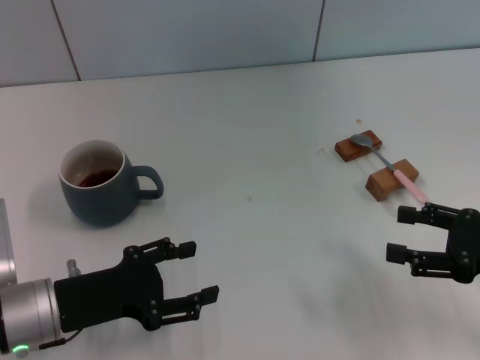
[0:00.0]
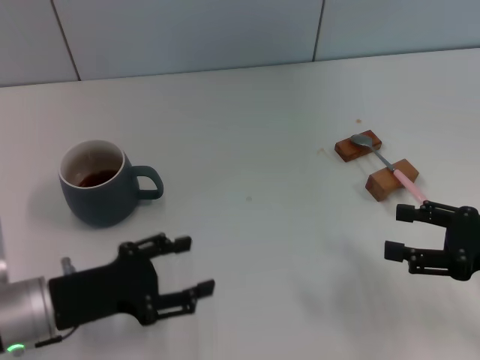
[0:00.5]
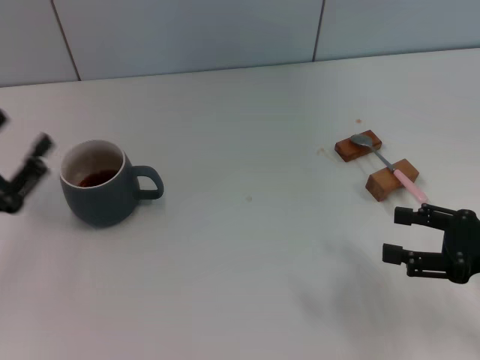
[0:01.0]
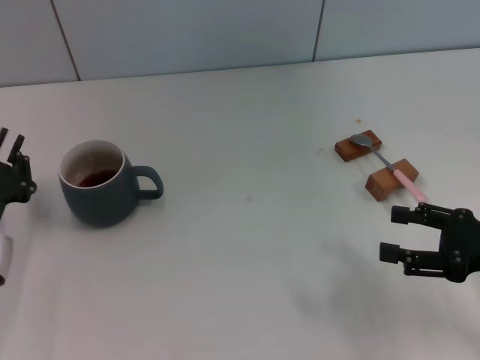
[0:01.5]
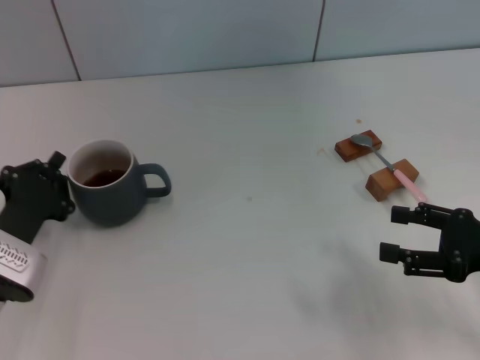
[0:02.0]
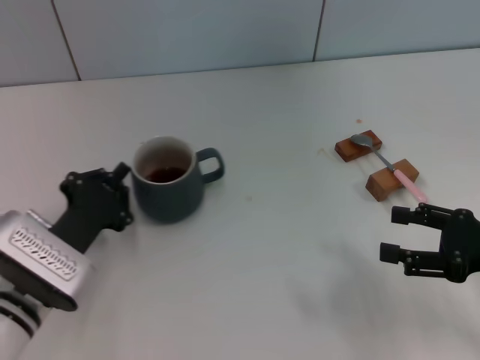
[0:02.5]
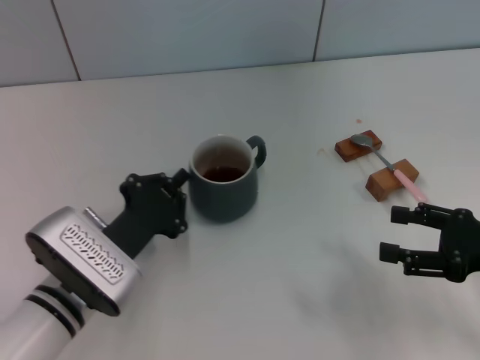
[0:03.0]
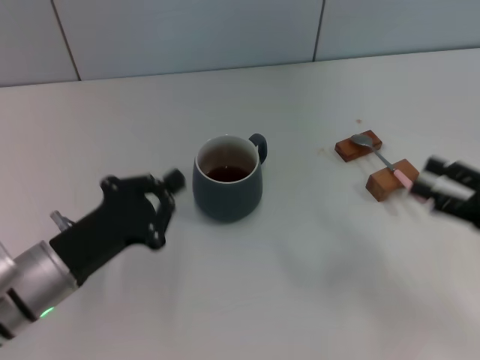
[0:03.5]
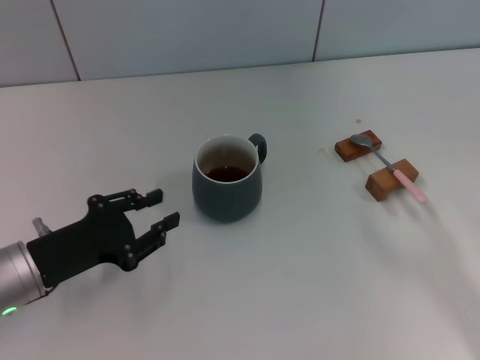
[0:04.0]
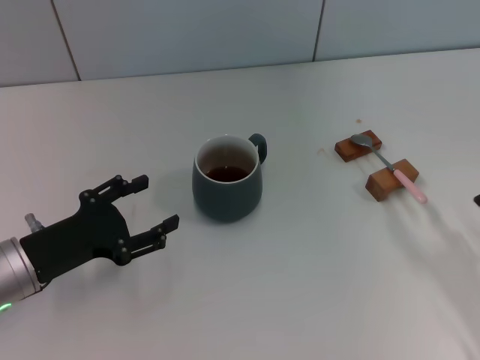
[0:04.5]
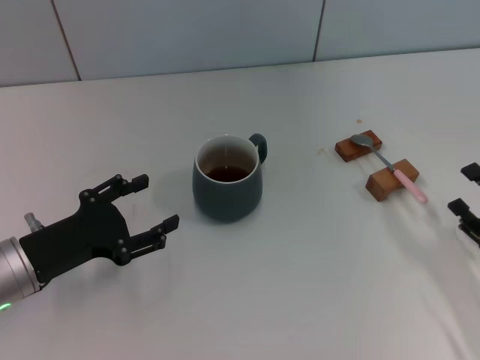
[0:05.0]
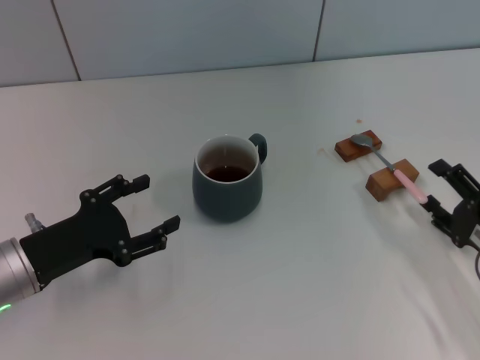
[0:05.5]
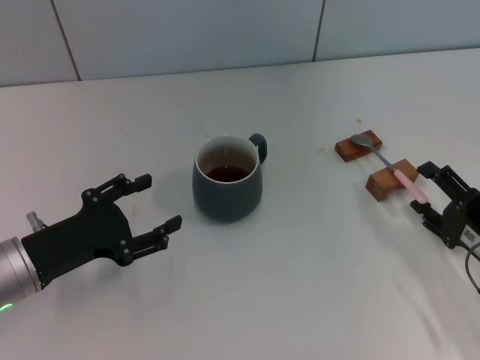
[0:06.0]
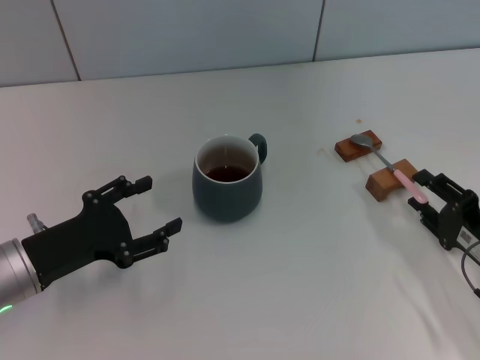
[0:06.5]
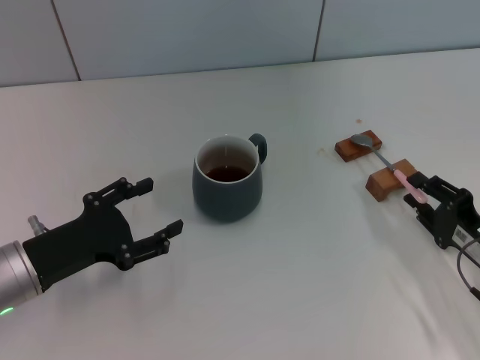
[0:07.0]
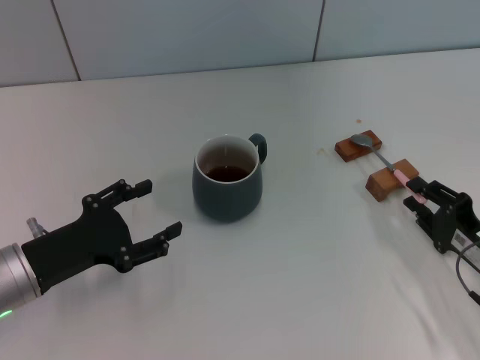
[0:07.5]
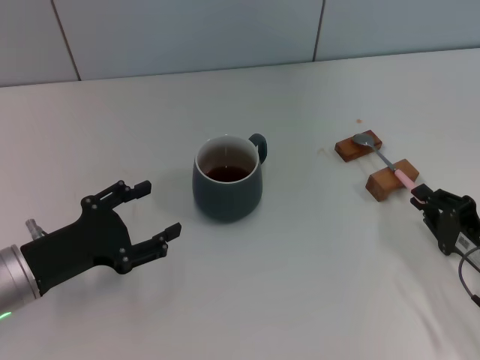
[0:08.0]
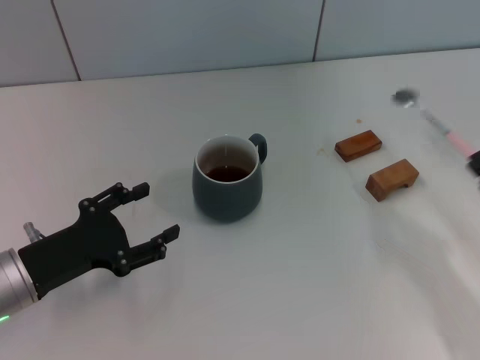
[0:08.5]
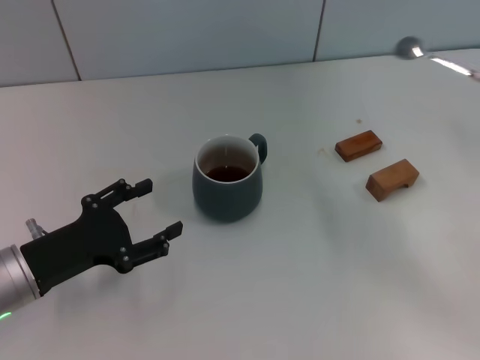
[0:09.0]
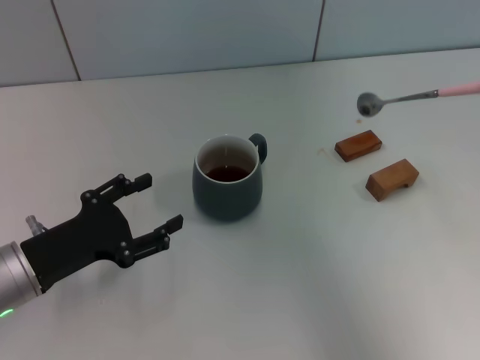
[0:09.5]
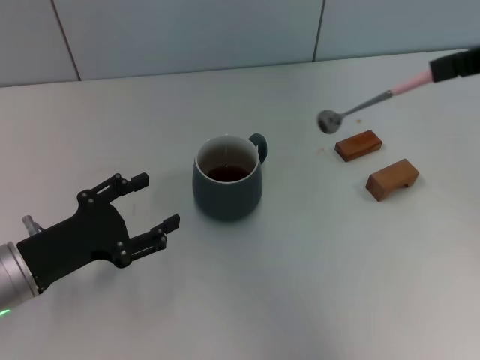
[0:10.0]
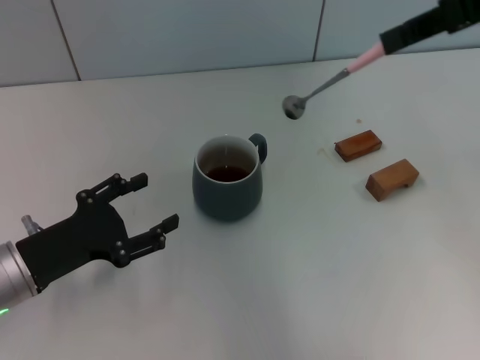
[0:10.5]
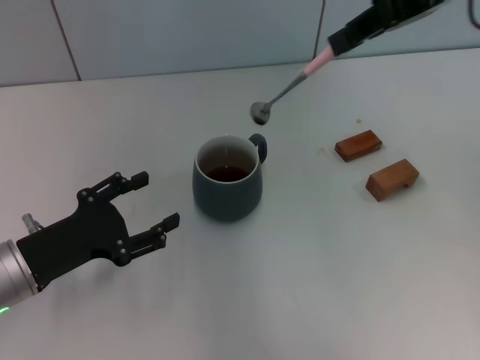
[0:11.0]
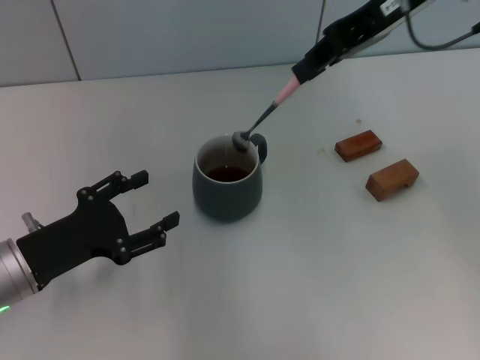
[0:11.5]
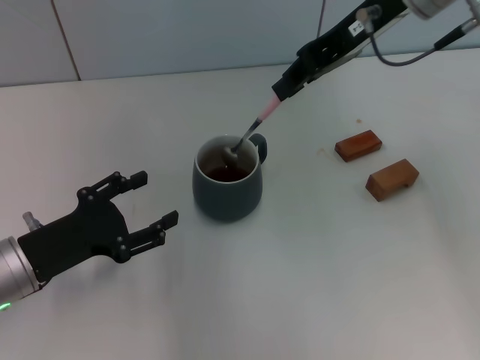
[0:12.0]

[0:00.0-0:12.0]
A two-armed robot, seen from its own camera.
Task of the whole recording: Move the grey cup to the center, lift the pink spoon, stir it three times in the cup, and put the spoon into the cup.
Step, 0:00.0 to 0:03.5: Move the cup with coffee to the center of view with the left gripper.
Step, 0:04.0 to 0:08.0: Pick up the spoon with the right gripper.
0:00.0 to 0:02.0: The left gripper moves approximately 10 cm to the left and comes back, and closes.
0:02.0 to 0:04.0: The right gripper moves about 5 cm. Meanwhile the left gripper reaches about 10 cm to the right, then returns.
0:04.0 to 0:06.0: The left gripper opens, while the right gripper travels to the left and downward by approximately 10 cm.
0:06.0 to 0:08.0: The right gripper closes up.
0:08.0 to 0:10.0: The right gripper moves upward, some 35 cm.
0:10.0 to 0:12.0: The right gripper goes some 15 cm to the left and forward.

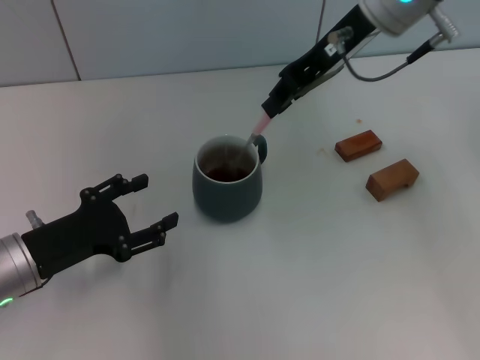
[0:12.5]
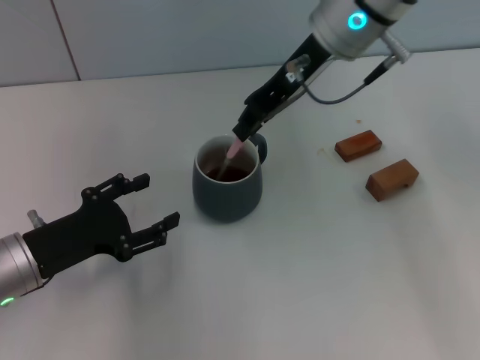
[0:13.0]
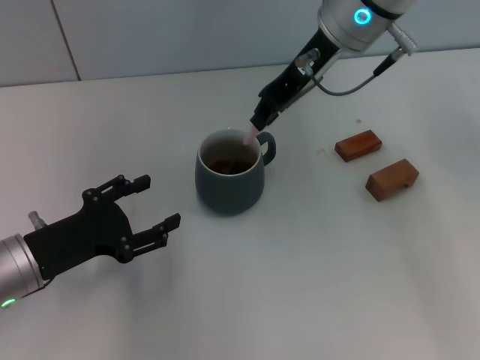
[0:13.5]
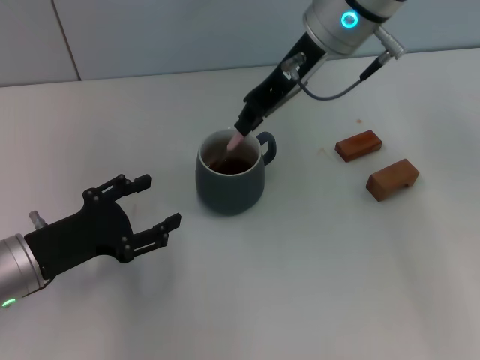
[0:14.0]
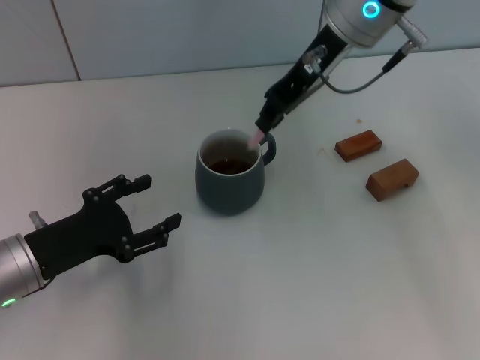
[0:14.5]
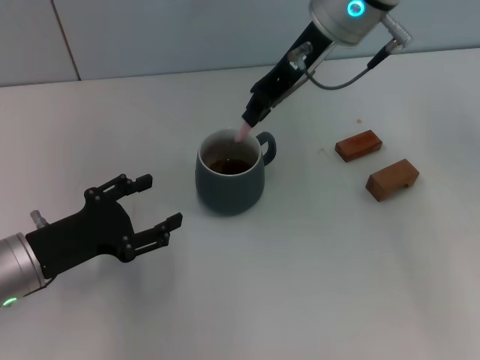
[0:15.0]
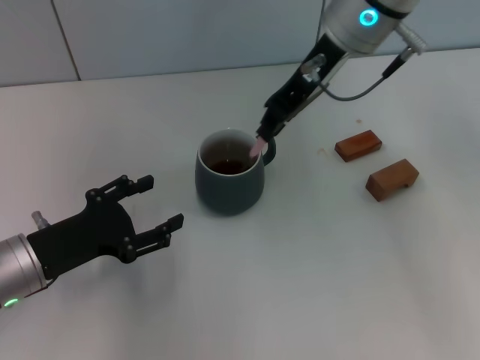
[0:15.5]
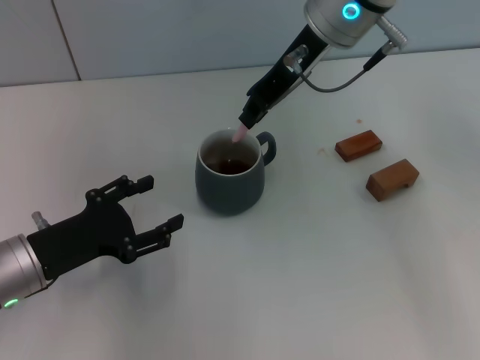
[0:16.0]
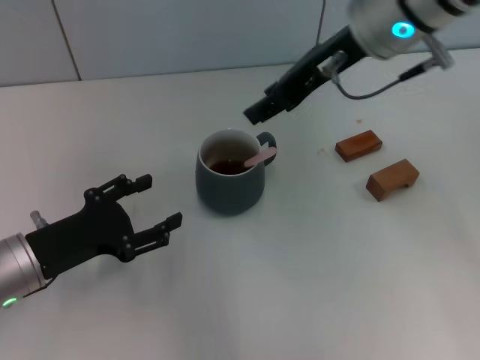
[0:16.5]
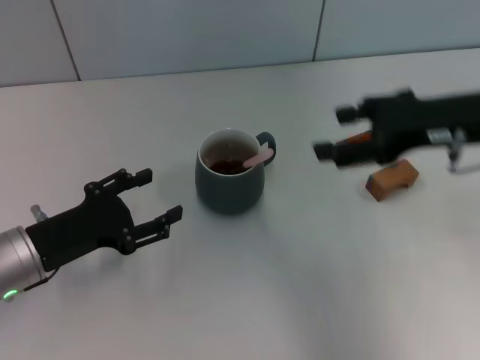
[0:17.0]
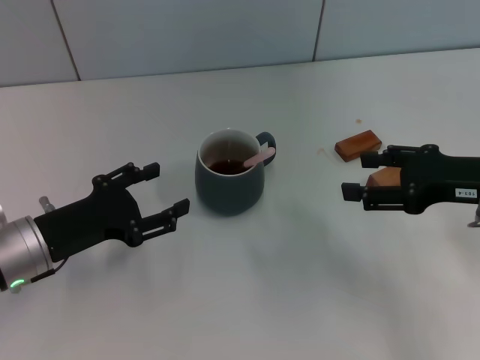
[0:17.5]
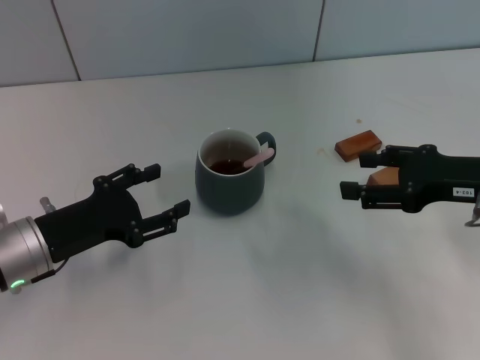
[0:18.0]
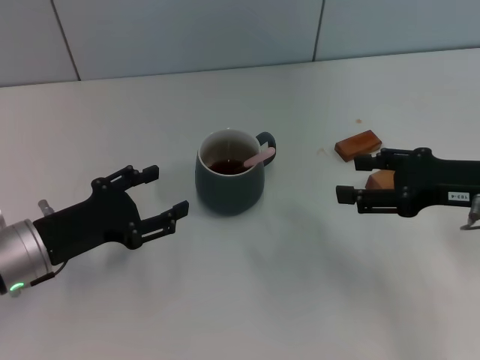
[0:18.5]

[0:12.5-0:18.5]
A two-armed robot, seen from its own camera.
Task of the whole recording: Move the grey cup to the center, lift the pink spoon, stir it three times in the cup, and put the spoon into the cup.
Step, 0:12.5 to 0:16.5: Stir the coffee in the cup with the right gripper.
0:12.5 to 0:14.5: There are only small adjustments of the grippers.
0:14.5 to 0:16.5: The right gripper ends up about 5 cm from where it was.
0:16.5 to 0:18.5: The right gripper is displaced to the right, downward and backward by roughly 20 cm, and opens.
